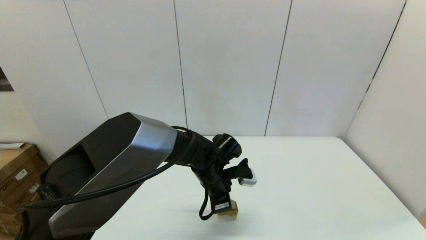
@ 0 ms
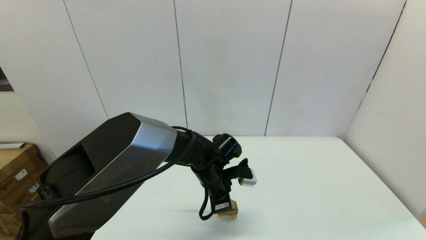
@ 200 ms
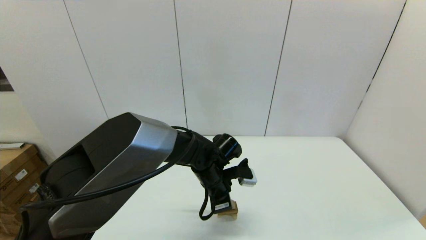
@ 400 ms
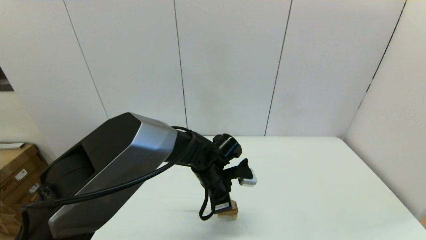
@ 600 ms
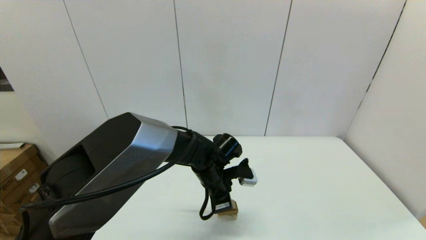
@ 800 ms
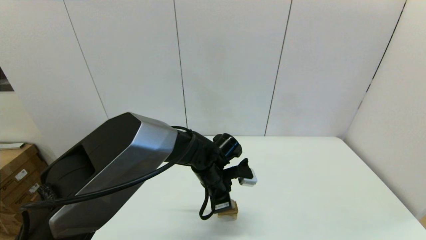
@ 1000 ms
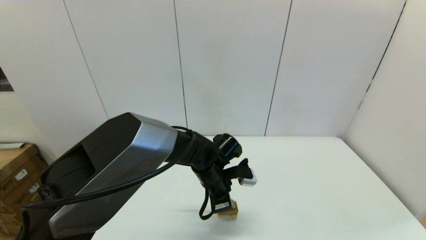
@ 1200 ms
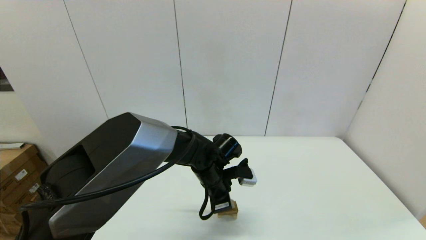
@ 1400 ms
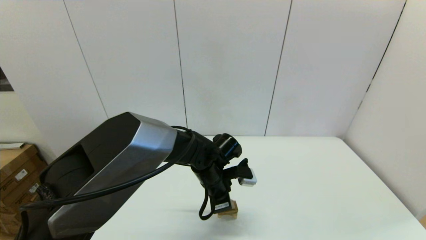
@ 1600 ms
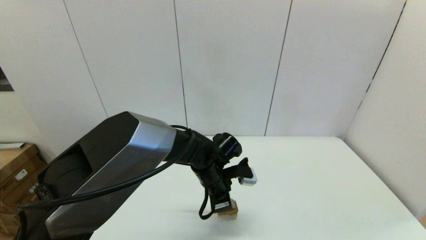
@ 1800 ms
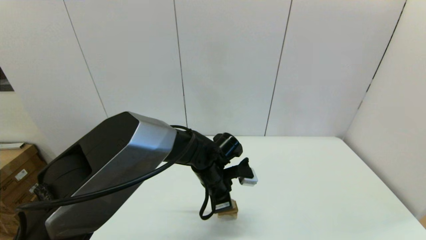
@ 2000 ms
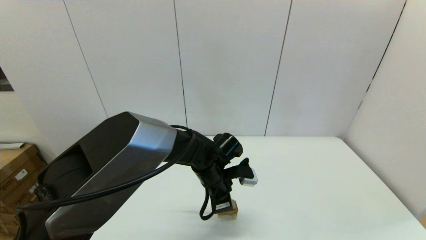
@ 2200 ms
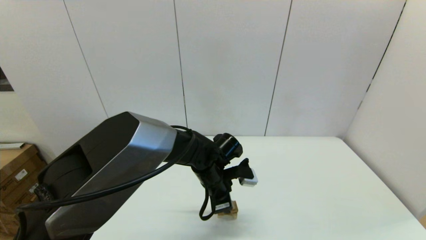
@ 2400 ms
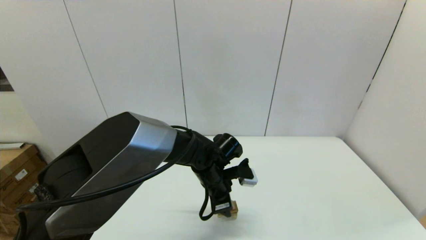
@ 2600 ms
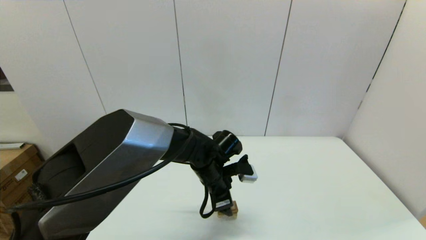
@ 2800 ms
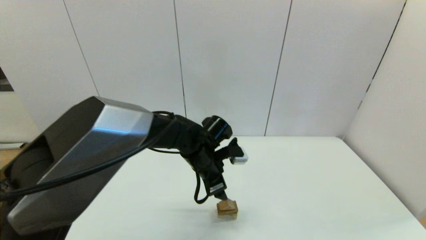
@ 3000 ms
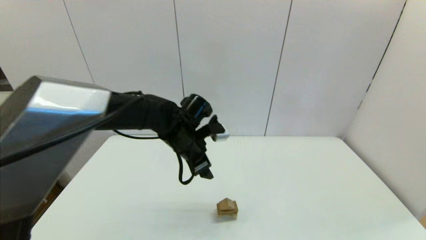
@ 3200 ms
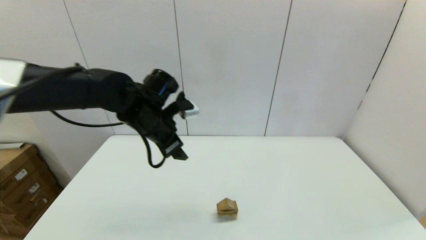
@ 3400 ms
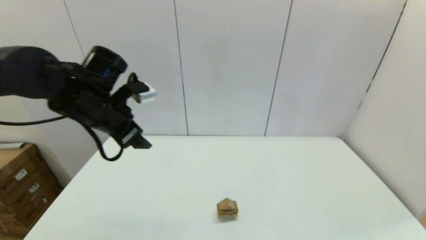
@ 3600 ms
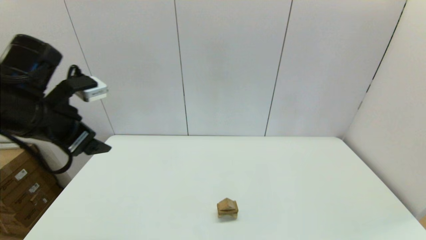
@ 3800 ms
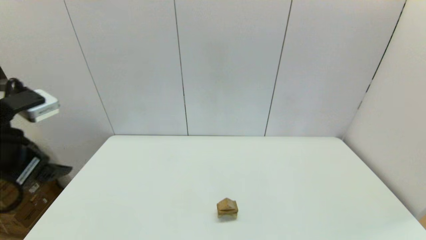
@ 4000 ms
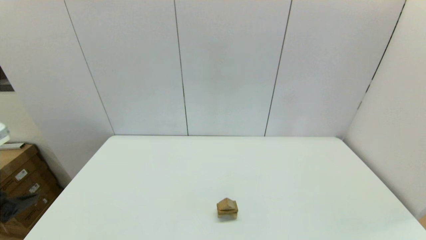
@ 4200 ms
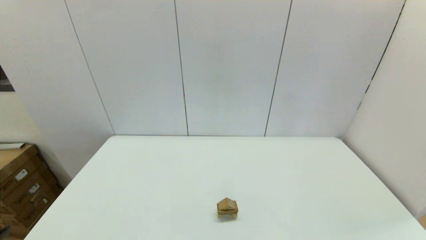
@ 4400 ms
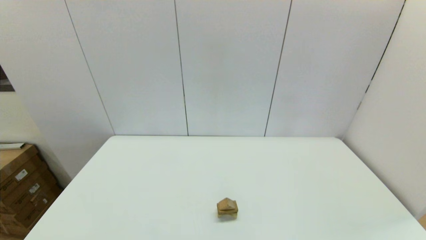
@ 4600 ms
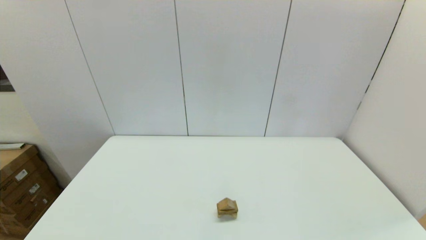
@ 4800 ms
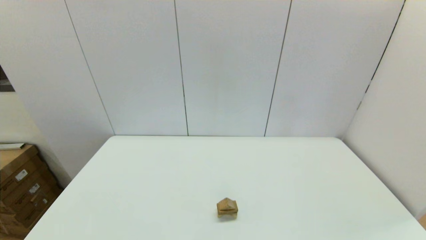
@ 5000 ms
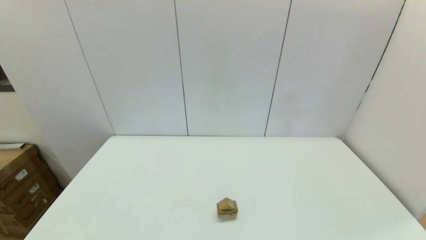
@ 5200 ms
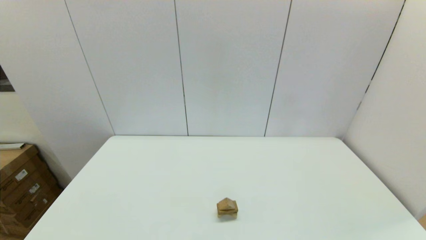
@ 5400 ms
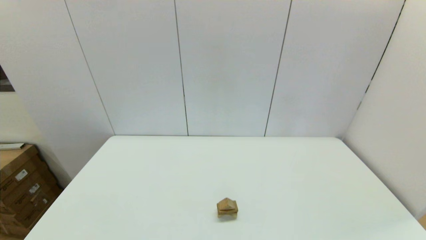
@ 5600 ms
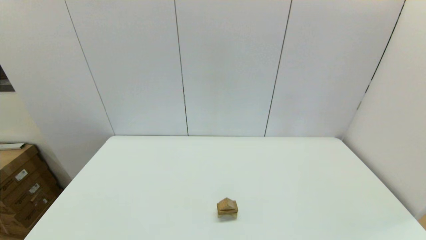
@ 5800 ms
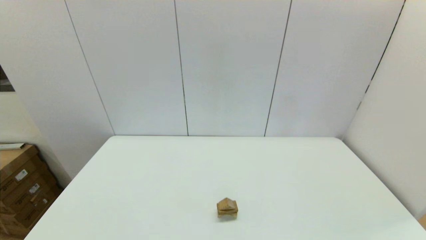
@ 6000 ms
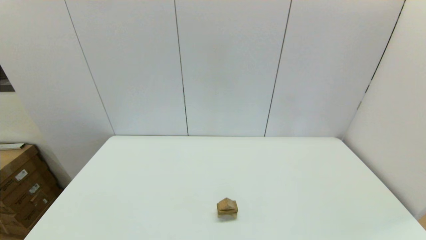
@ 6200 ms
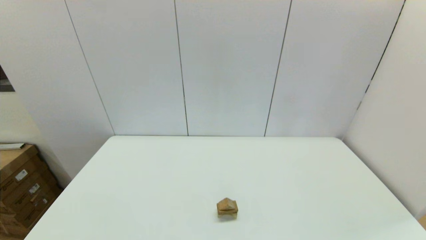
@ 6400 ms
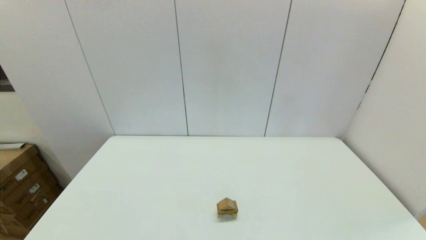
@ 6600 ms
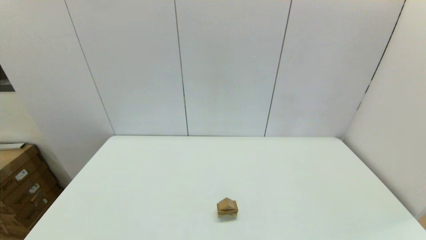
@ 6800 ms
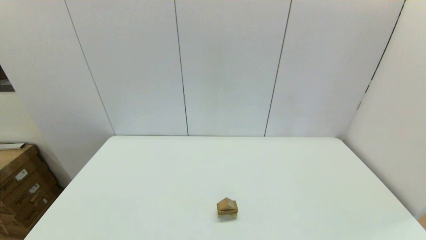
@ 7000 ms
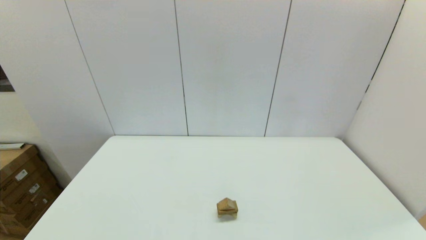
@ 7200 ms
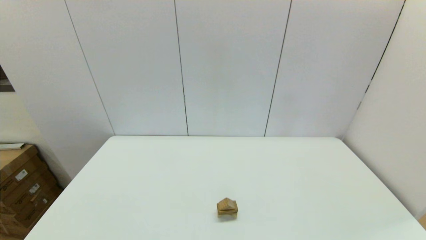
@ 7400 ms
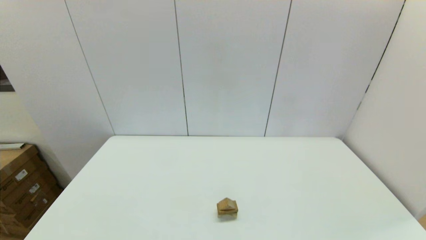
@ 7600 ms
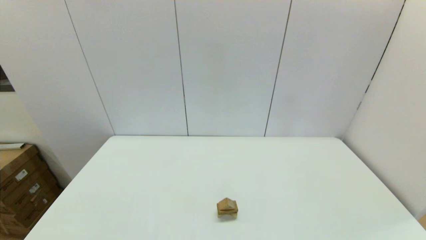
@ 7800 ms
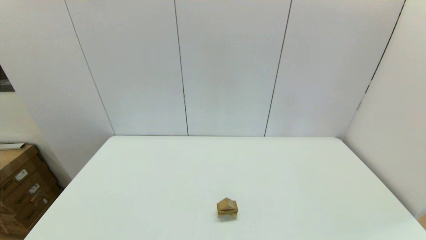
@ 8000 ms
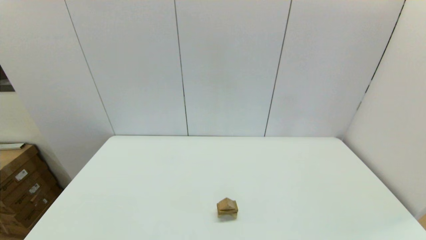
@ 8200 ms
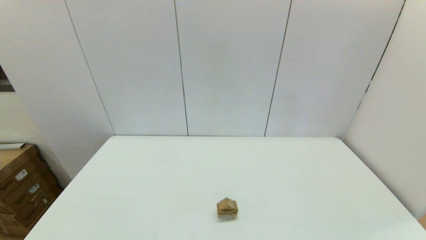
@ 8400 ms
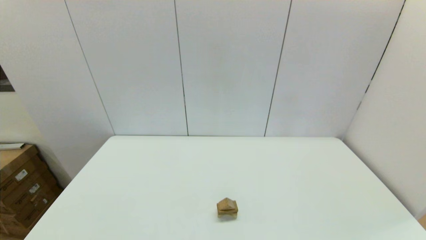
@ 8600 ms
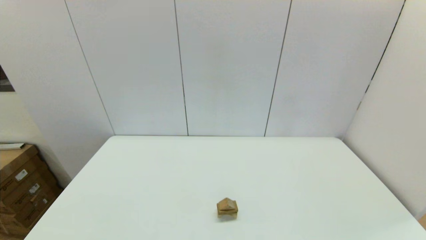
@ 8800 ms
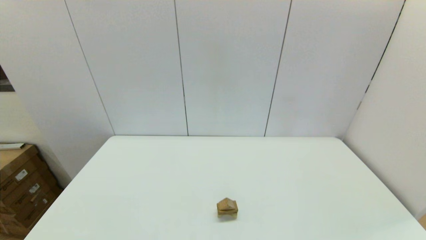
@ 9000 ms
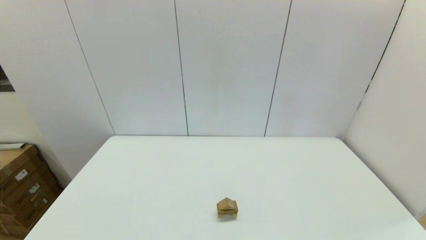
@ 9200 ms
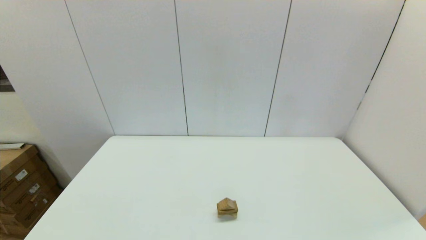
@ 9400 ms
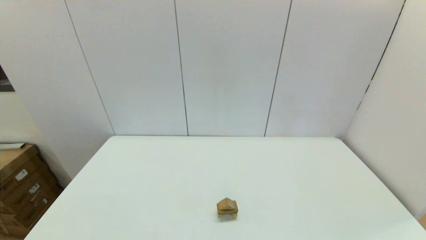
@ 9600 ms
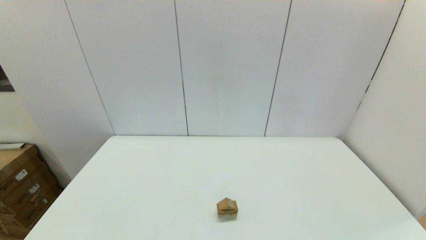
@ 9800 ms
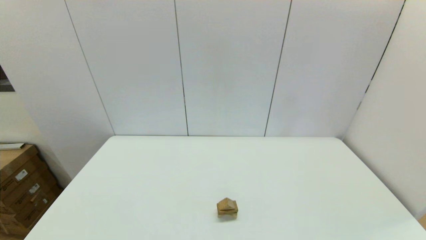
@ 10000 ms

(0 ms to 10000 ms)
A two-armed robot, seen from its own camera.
Task of the whole recording: place the arched building blocks in the center of the table, set up the rectangular building blocks, and then set up the triangular building blocks.
0 ms - 1400 ms: Both grippers stay about where they are.
1400 ms - 2800 ms: The left gripper opens up.
2800 ms - 4200 ms: The left gripper is displaced to the left, backward and upward by some 40 cm.
7200 ms - 10000 ms: Both grippers stay put.
